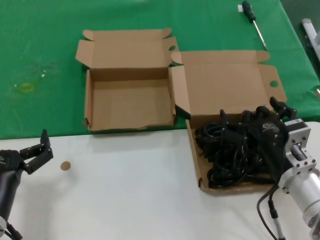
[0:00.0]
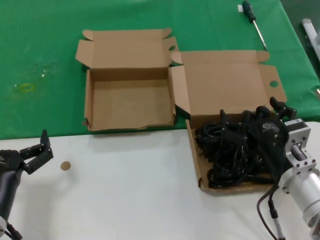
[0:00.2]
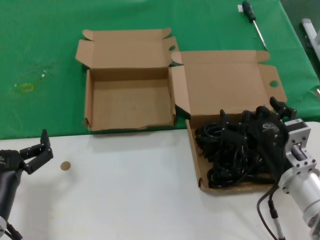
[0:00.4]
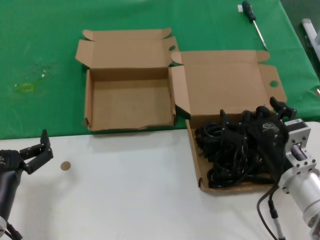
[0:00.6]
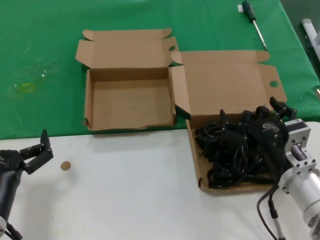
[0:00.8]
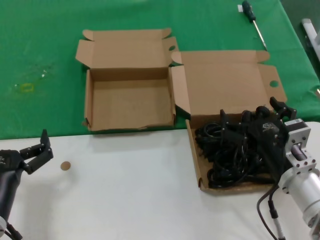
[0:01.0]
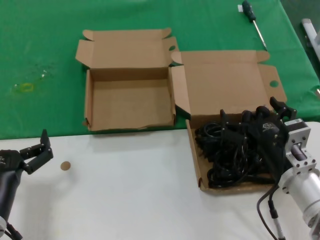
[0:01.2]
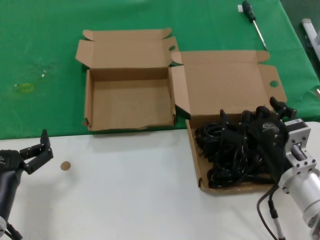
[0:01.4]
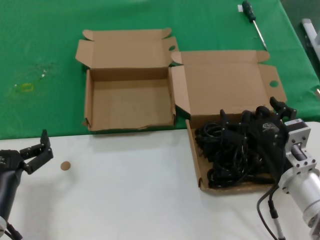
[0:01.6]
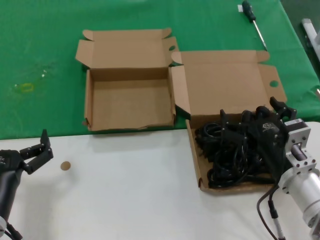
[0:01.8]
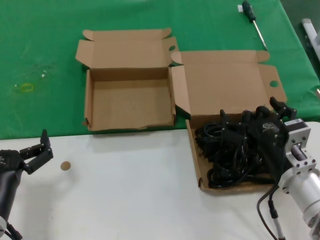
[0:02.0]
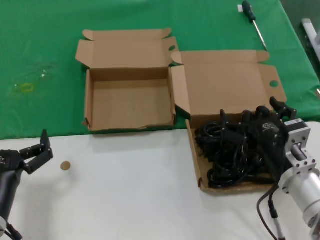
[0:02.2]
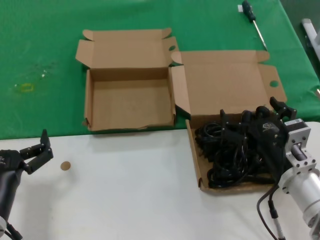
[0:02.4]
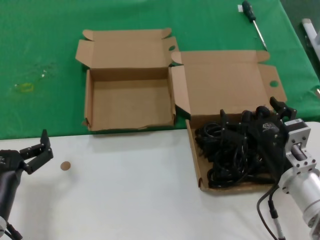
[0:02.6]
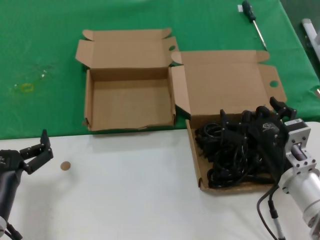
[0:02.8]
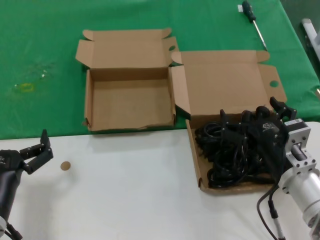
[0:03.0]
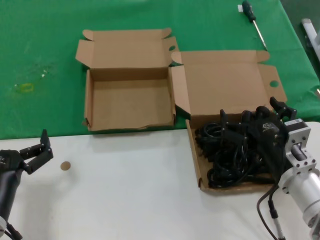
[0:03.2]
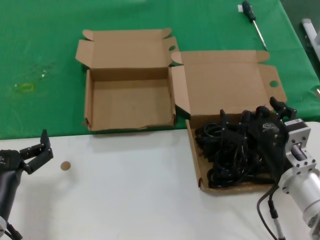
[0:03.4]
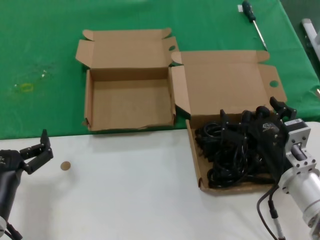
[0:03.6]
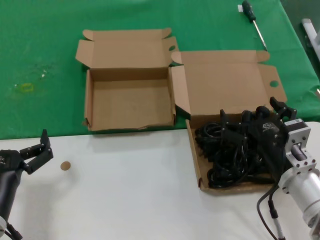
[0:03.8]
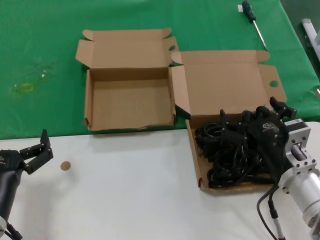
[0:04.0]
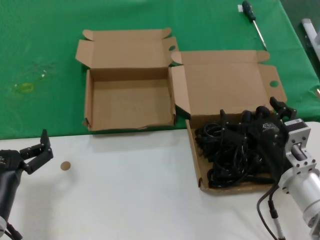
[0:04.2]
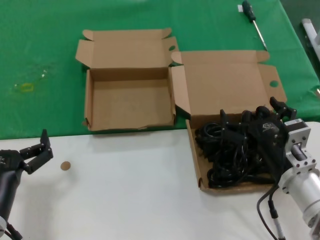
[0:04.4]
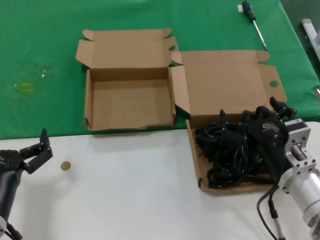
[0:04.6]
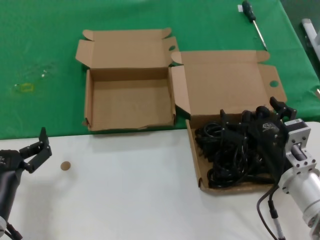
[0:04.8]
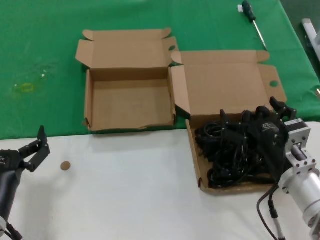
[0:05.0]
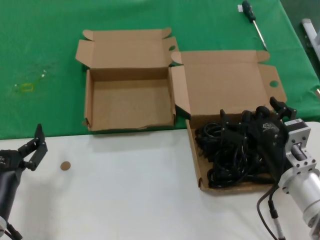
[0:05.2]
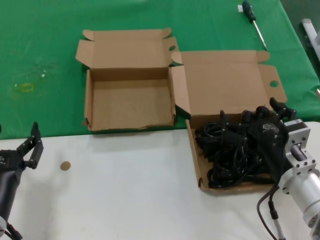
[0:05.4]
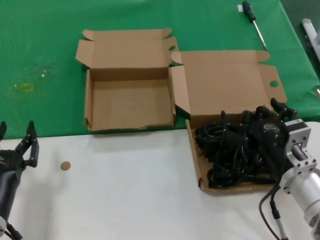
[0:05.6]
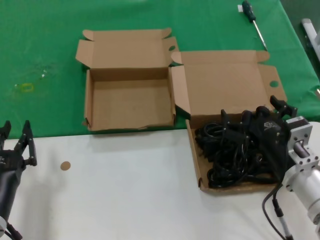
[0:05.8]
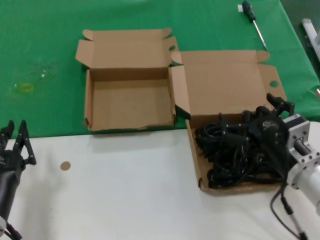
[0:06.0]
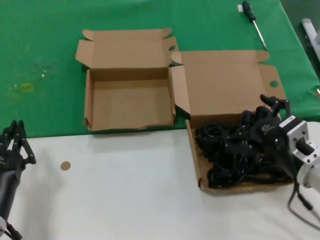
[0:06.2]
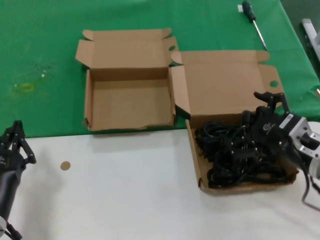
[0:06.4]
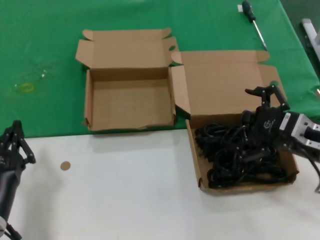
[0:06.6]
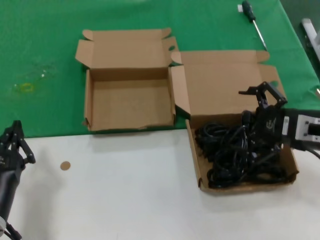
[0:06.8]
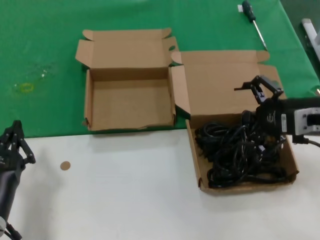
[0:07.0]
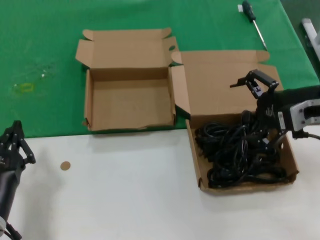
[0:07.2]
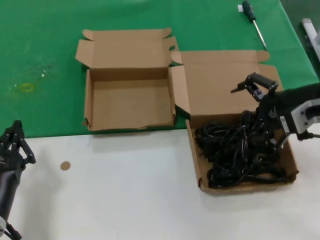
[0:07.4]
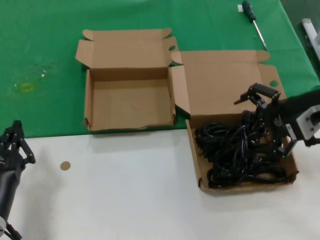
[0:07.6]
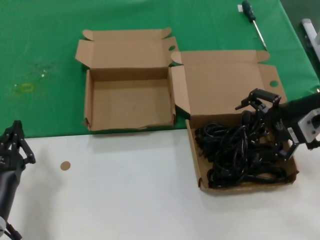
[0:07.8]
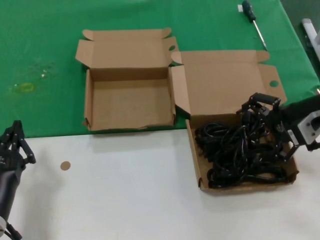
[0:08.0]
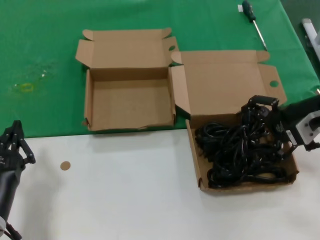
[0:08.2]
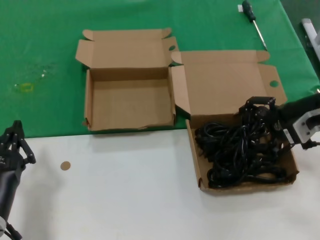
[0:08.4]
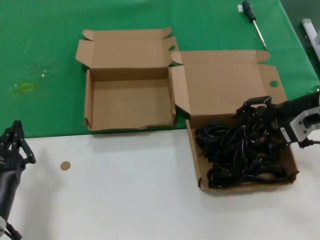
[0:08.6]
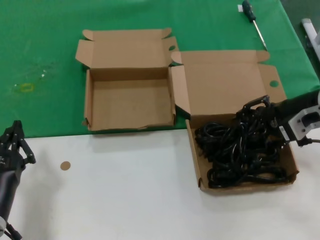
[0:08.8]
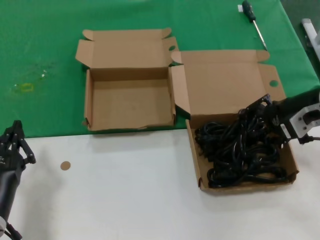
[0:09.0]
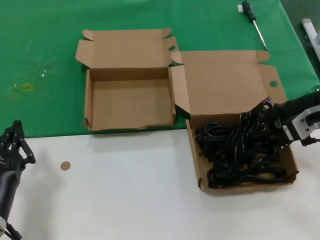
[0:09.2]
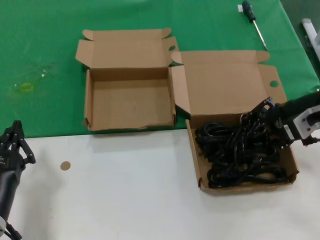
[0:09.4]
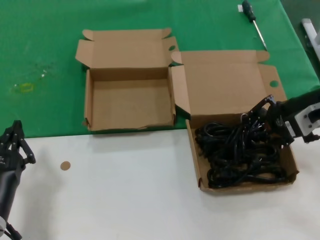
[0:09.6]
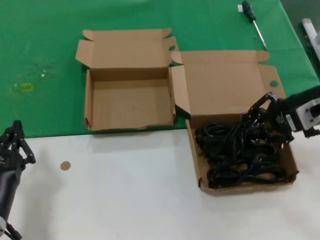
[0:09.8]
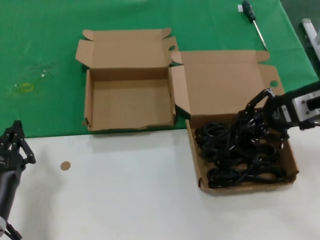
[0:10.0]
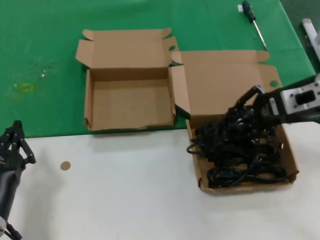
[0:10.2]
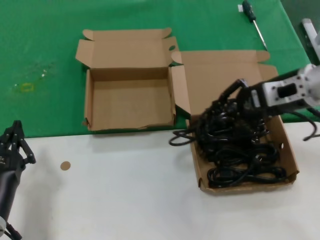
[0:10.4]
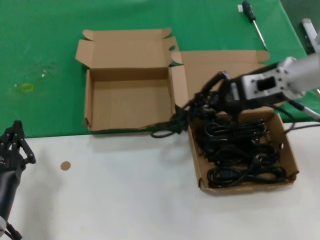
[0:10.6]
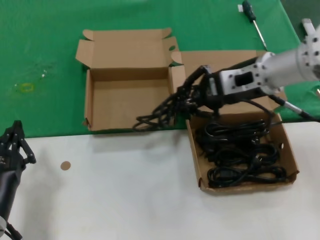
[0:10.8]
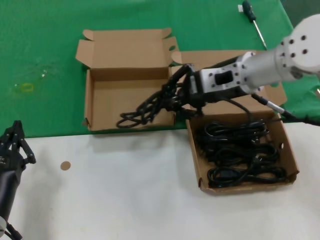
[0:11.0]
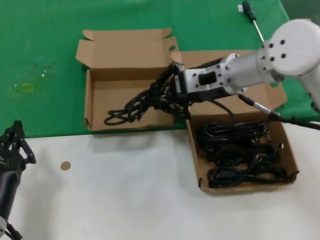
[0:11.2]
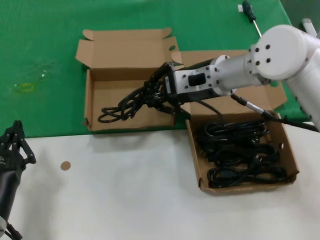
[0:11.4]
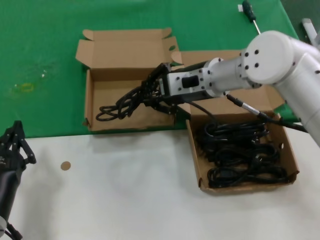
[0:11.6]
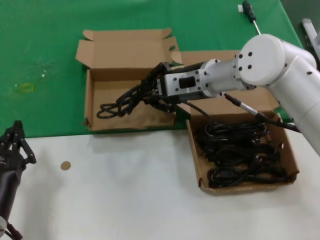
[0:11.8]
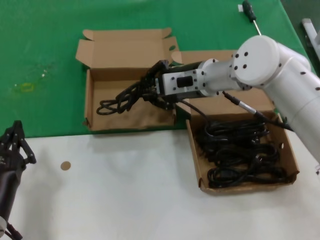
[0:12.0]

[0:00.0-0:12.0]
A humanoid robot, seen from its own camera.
Task of the whole recording: take the parts from the box containing them and put them into an empty box.
Step, 0:00.0 to 0:09.2: Grasp the data cable.
0:00.0 to 0:04.4: The two hands keep their place.
0:04.4 to 0:06.0: The hands make only small movements.
0:06.0 to 0:07.6: The right hand shifts about 20 cm upward, forward and to the right.
0:07.6 to 0:09.0: The hands move only a little.
0:09.0 to 0:10.4: The right hand changes place by about 5 cm.
0:10.4 to 0:12.0: The right hand is displaced to the left and forward by some 20 cm.

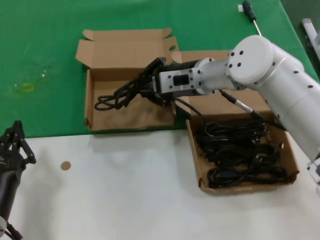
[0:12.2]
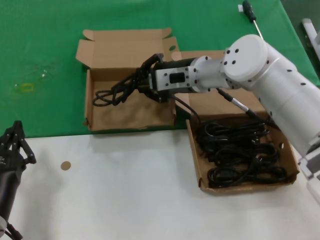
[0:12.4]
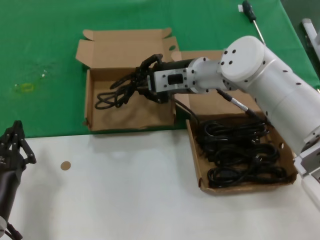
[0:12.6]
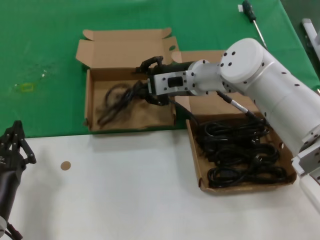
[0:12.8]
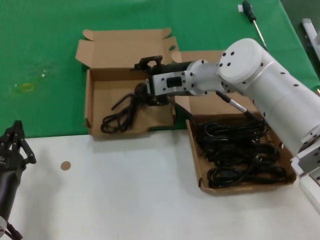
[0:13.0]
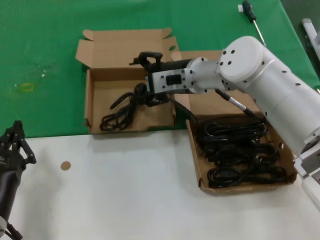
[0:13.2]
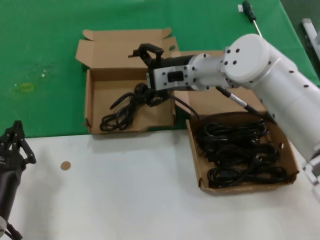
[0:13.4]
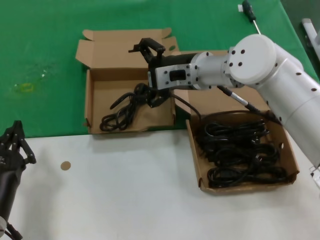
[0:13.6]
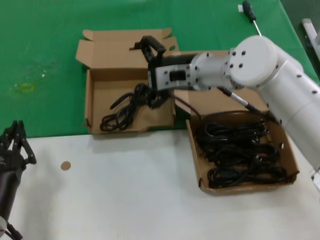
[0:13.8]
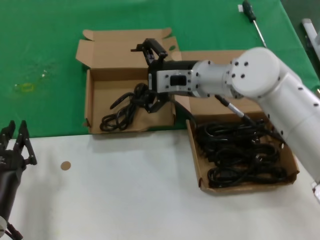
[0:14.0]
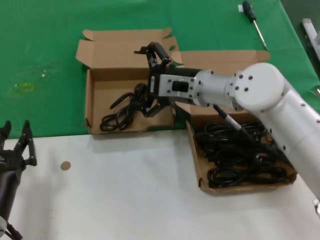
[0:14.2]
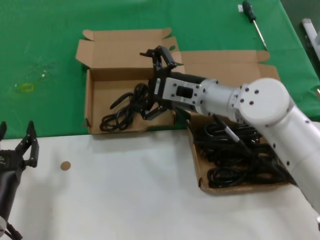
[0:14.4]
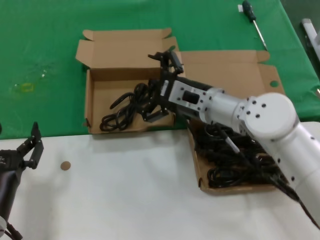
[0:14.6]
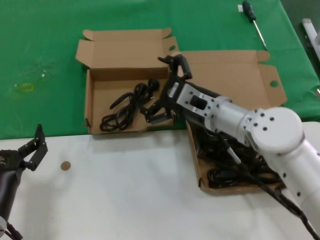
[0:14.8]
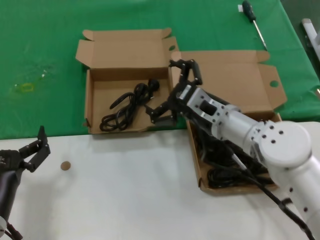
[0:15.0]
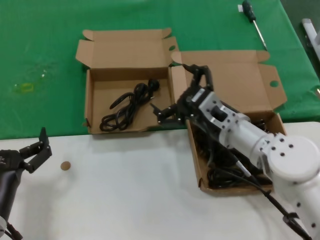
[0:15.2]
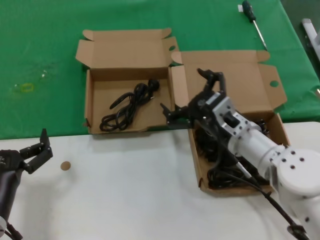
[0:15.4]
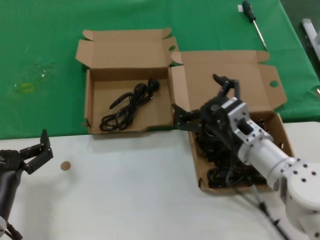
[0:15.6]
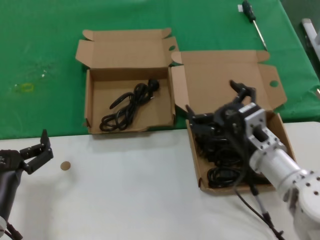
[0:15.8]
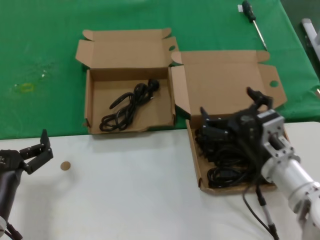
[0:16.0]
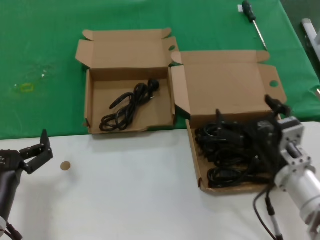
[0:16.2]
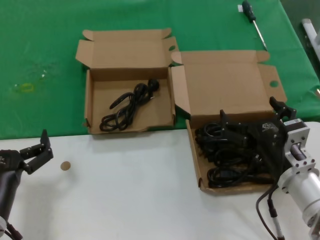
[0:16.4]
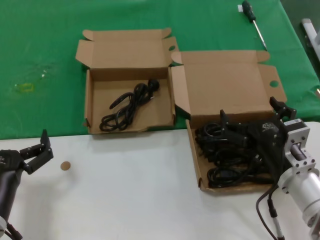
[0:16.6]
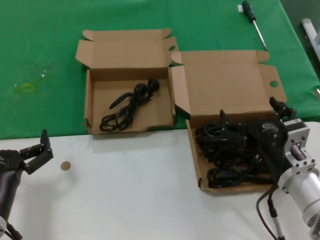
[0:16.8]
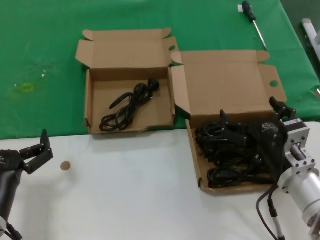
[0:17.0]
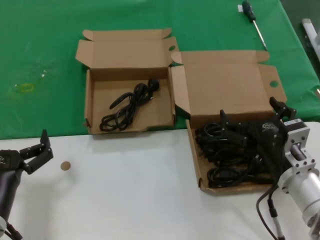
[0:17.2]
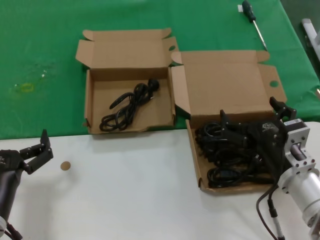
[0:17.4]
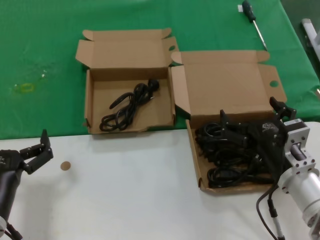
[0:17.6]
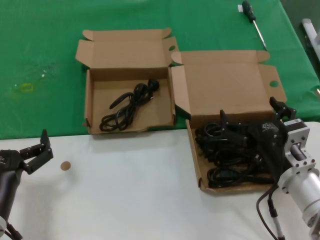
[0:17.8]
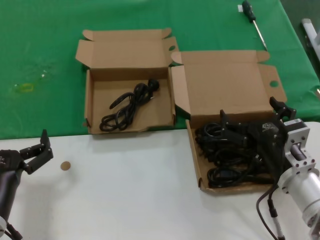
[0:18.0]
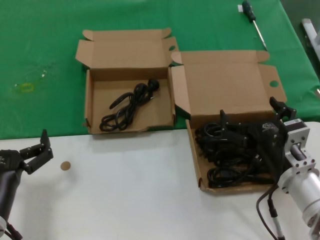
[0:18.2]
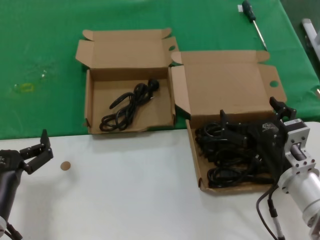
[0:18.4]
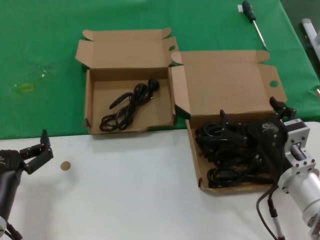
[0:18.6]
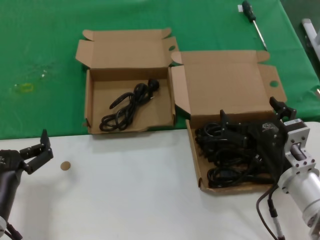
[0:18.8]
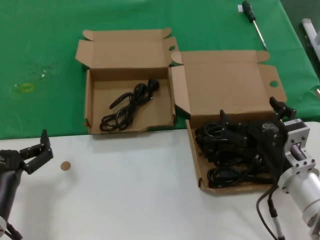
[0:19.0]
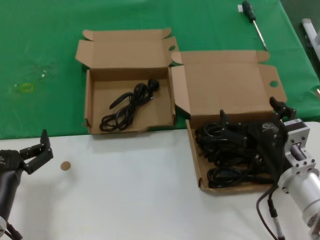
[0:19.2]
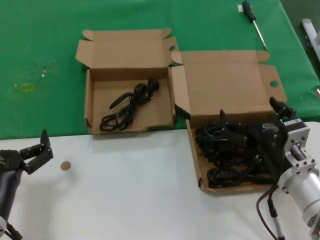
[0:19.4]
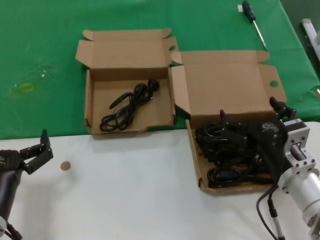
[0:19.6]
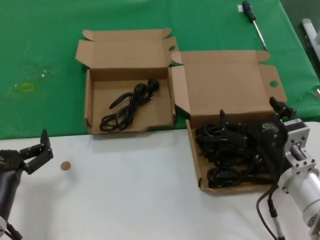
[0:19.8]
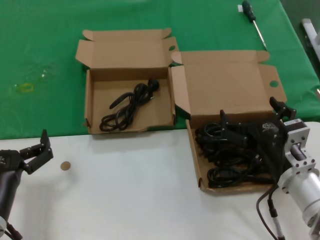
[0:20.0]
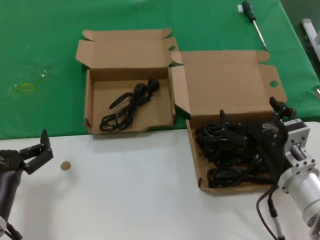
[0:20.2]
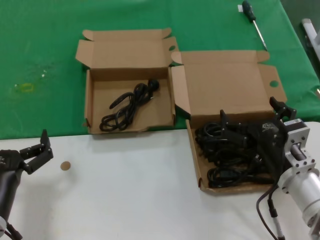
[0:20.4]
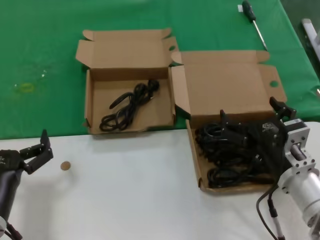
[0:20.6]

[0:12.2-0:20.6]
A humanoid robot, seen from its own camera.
Task of the whole recording: take the parts from the box containing them and put them into an empty box.
0:12.2 to 0:13.6: The hands make only small movements.
0:13.6 to 0:15.0: The right hand goes approximately 15 cm downward and backward.
0:15.0 to 0:16.4: The right hand is displaced backward, to the right and downward by about 15 cm.
0:16.4 to 0:20.6: Both hands stay about where they are.

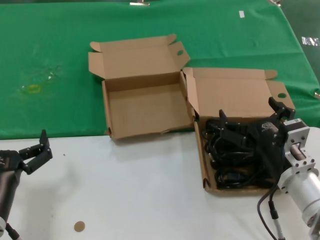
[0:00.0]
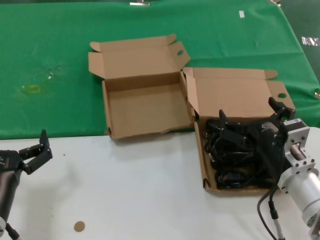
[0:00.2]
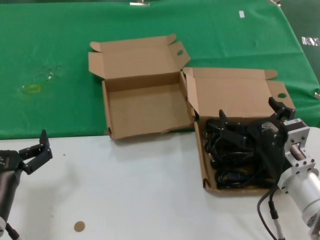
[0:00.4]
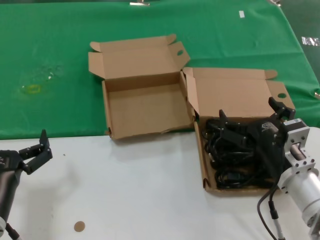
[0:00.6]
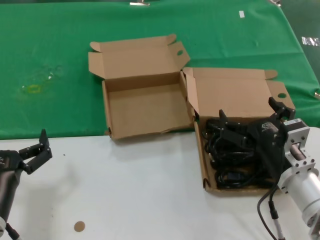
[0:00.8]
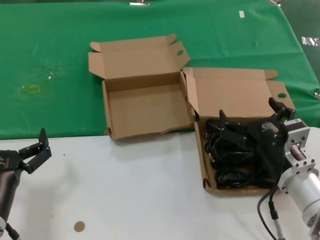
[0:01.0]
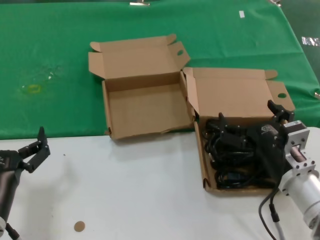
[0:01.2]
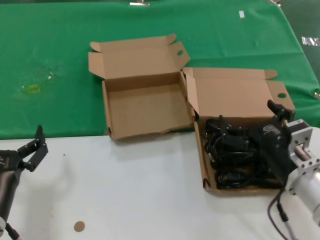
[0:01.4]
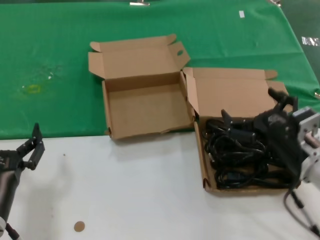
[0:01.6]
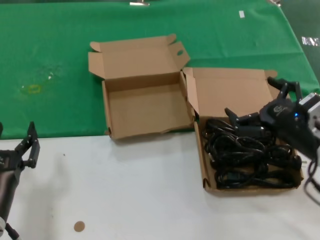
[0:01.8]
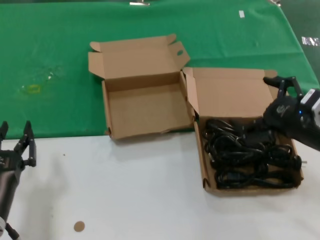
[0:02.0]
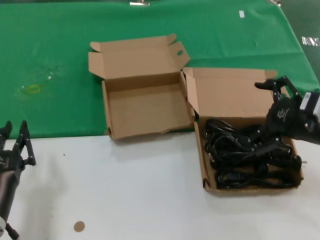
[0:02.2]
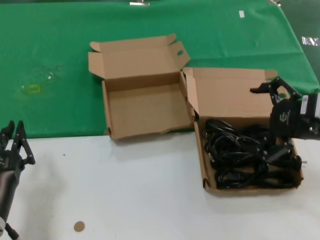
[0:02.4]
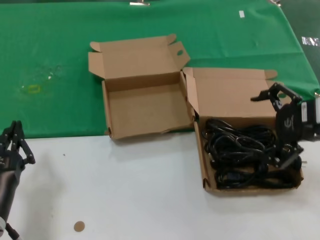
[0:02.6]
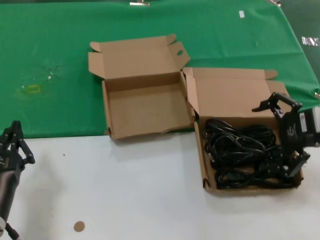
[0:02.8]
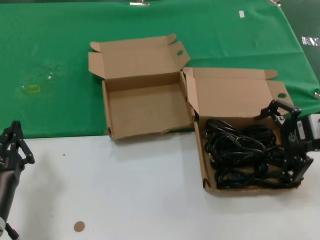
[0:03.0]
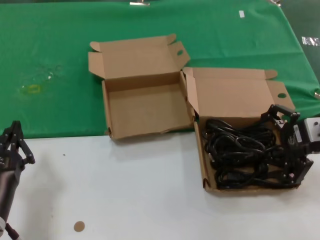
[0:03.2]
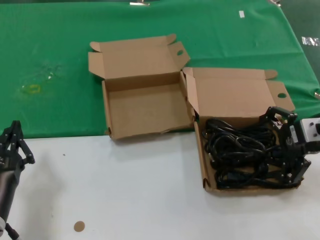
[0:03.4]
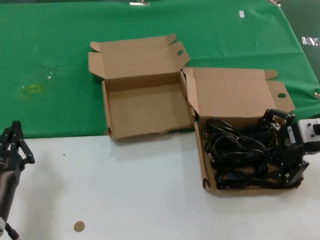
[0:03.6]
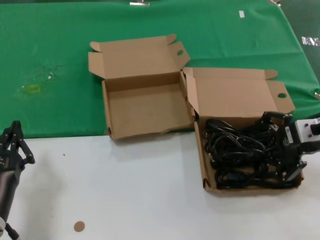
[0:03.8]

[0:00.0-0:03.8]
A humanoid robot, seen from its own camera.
Task of the whole recording: take the parts from the box containing them and put them into an empty box.
0:00.0 to 0:01.2: Neither hand changes place.
0:01.2 to 0:02.6: The right hand is displaced upward and to the right by about 20 cm.
0:02.6 to 0:03.8: The hands make only small movements.
